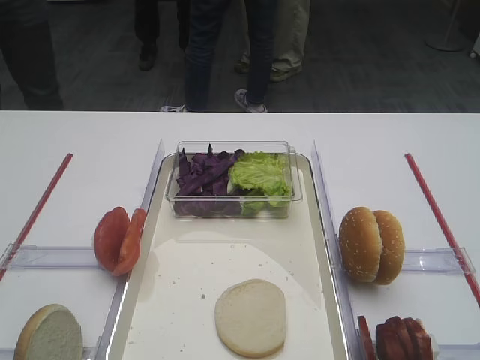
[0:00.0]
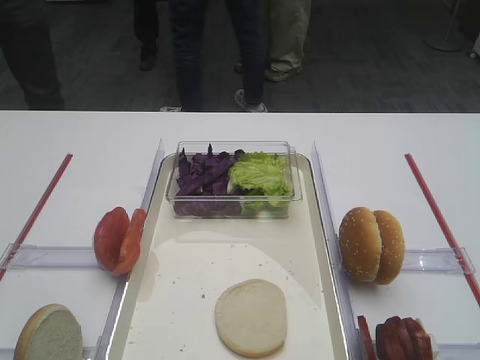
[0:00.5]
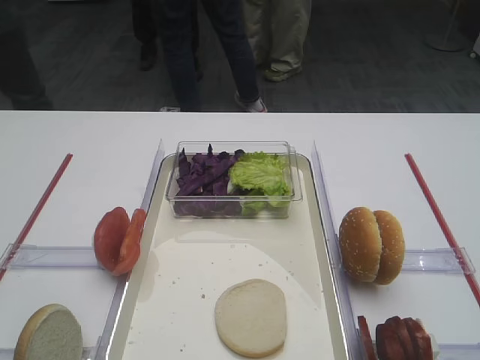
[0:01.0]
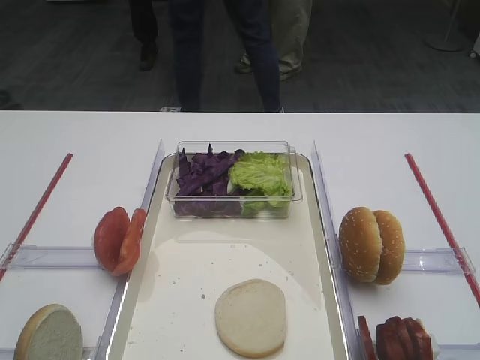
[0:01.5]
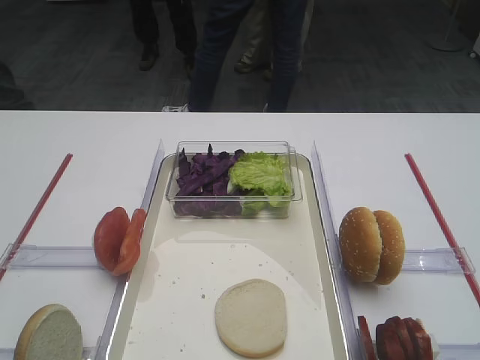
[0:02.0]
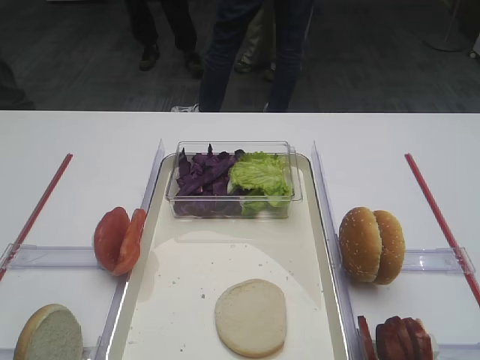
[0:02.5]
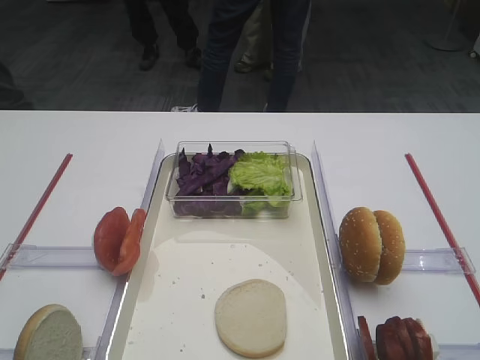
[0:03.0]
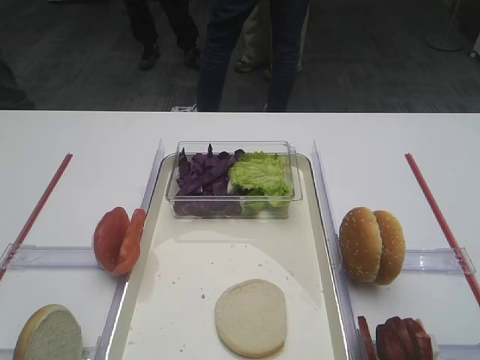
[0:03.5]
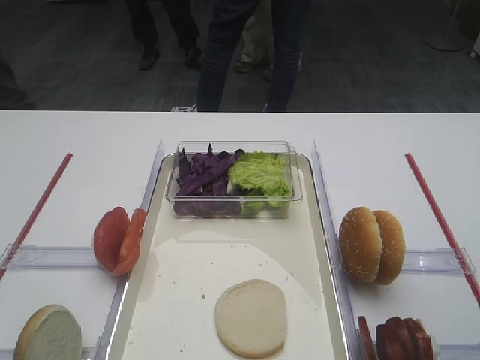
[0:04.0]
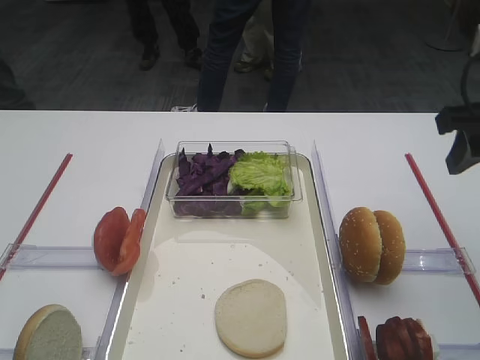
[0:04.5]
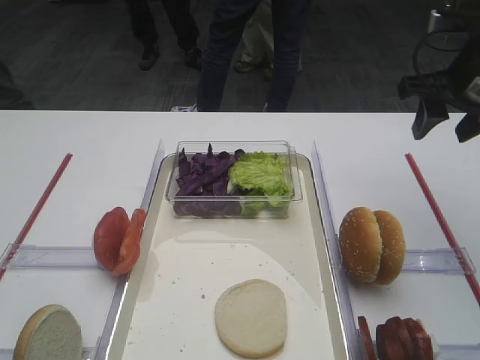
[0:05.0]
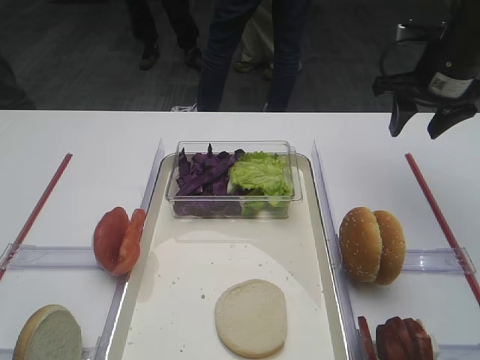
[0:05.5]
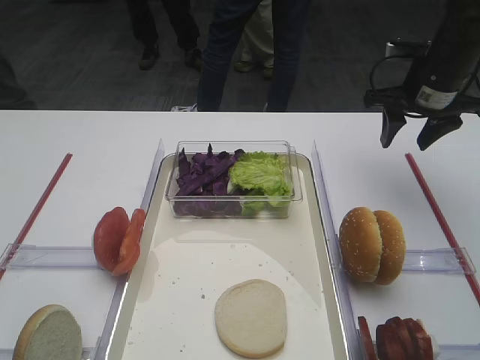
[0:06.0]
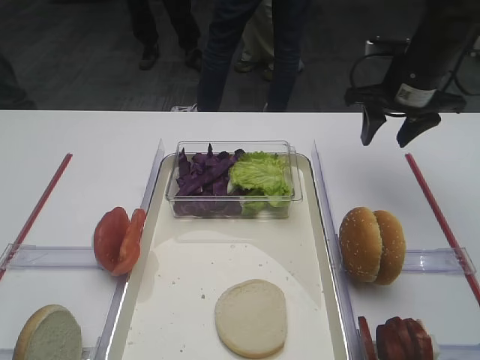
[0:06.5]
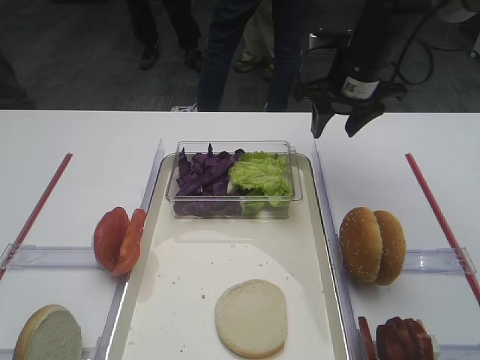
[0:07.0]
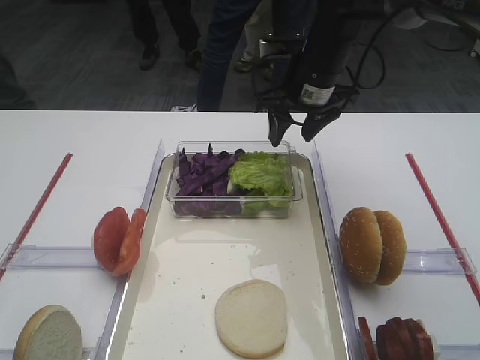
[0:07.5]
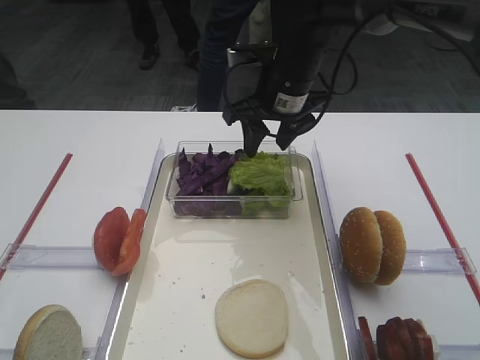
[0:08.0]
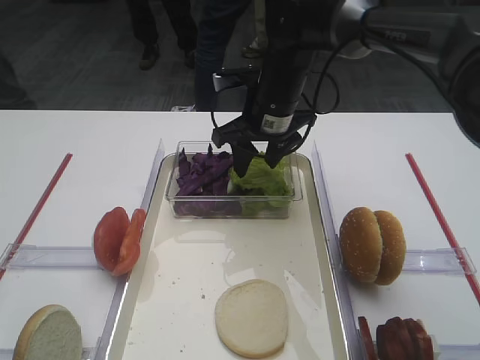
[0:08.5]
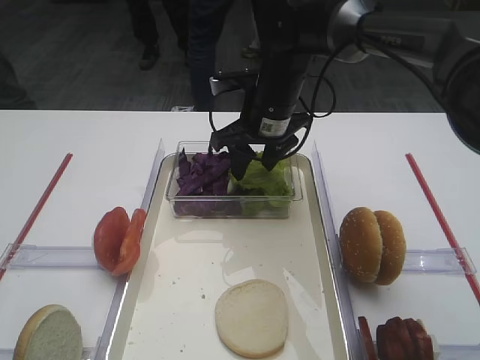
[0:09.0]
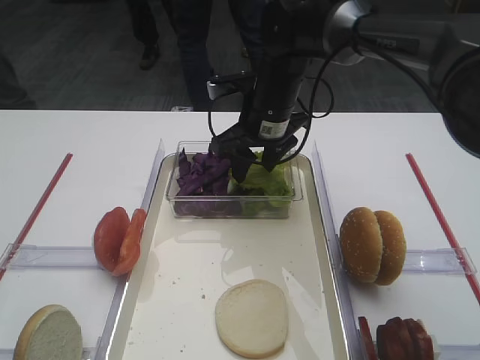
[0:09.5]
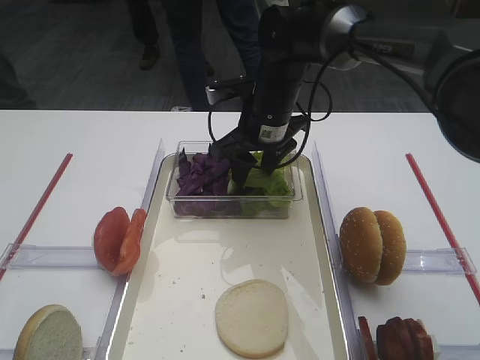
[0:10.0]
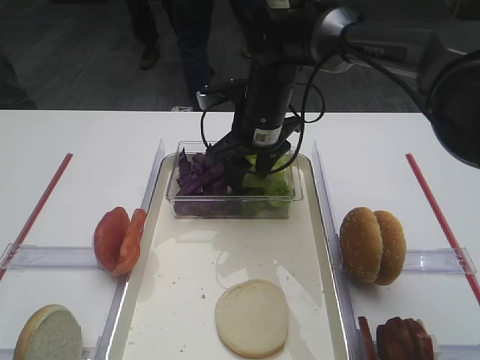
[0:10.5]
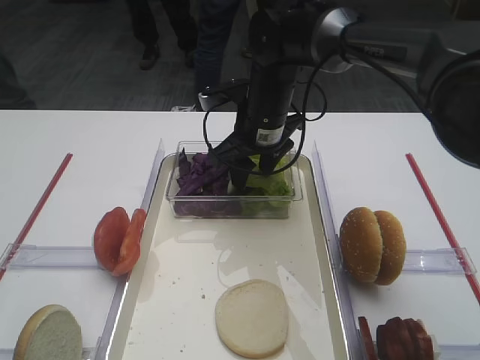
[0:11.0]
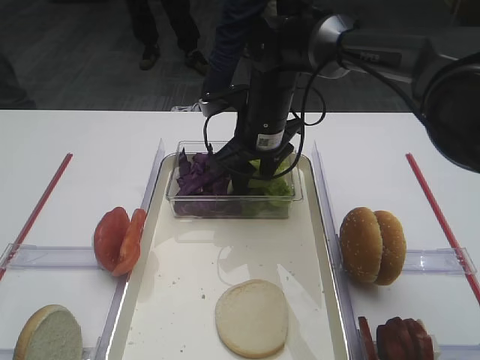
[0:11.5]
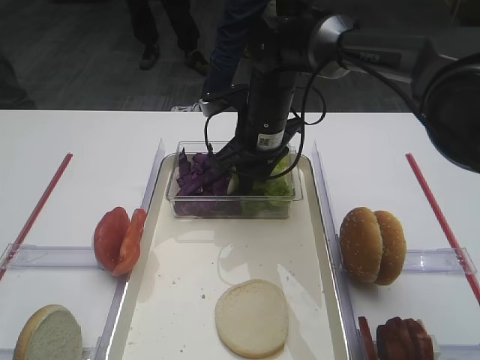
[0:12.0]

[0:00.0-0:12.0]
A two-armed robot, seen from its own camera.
0:04.0 to 0:06.0: The right gripper goes about 30 cm forward.
0:06.0 to 0:08.0: The right gripper shifts approximately 20 cm to the left.
0:08.0 to 0:10.0: There are only small adjustments of the grippers.
0:10.0 to 0:12.0: The right gripper closes.

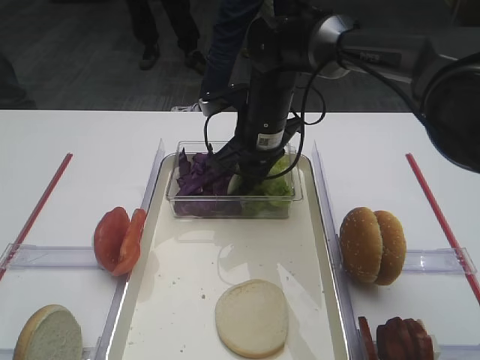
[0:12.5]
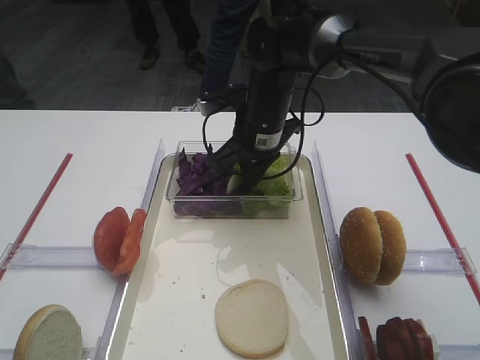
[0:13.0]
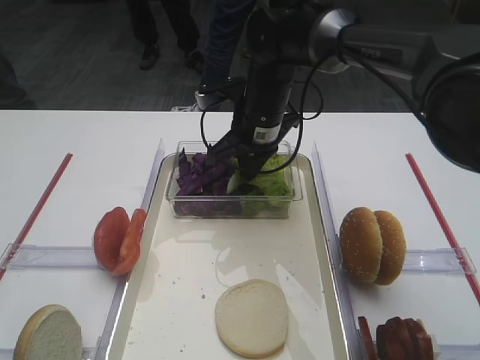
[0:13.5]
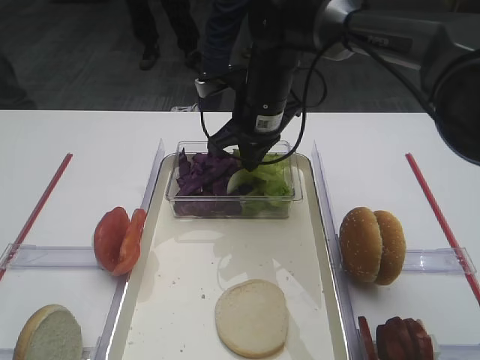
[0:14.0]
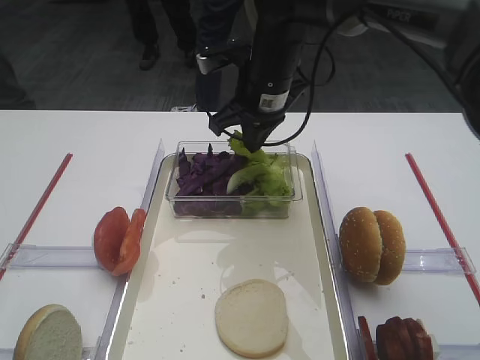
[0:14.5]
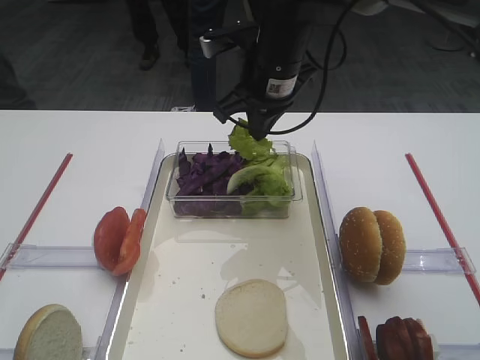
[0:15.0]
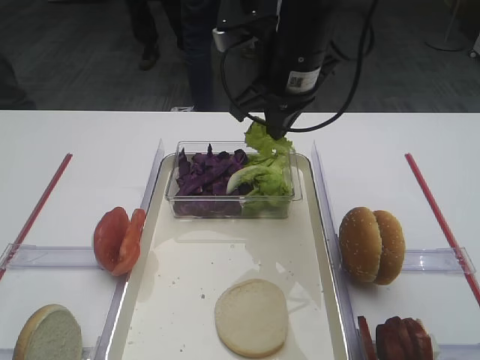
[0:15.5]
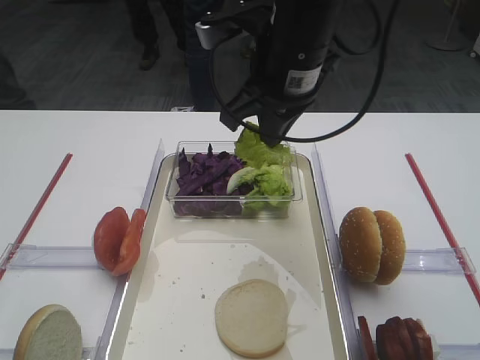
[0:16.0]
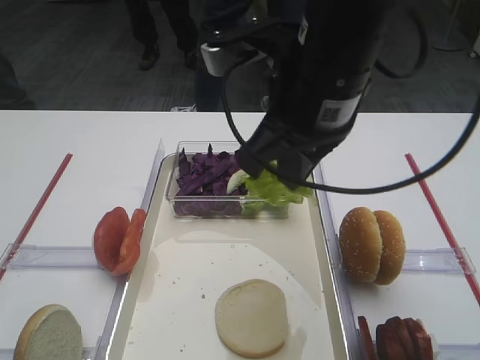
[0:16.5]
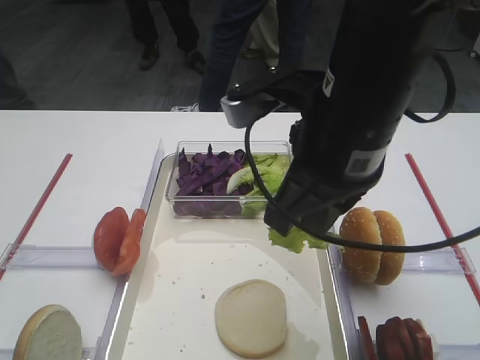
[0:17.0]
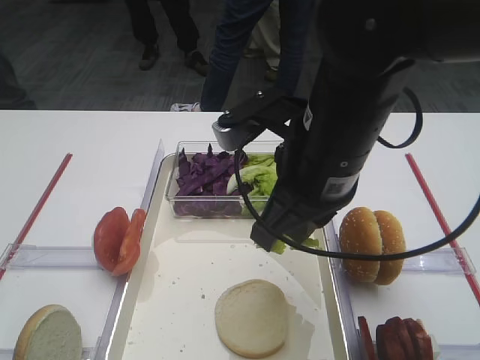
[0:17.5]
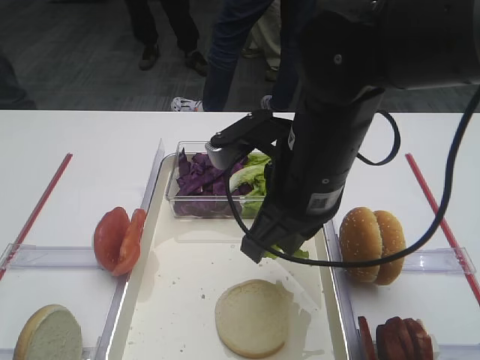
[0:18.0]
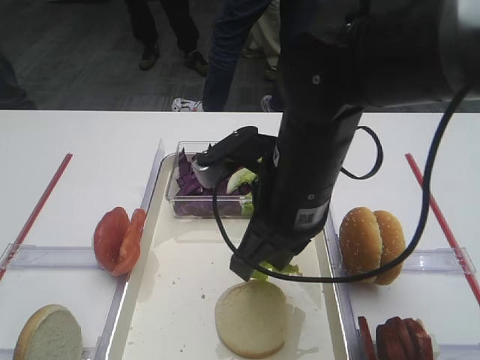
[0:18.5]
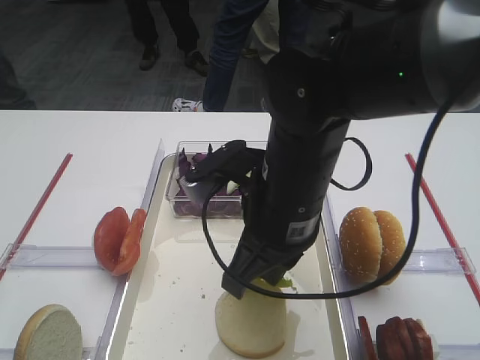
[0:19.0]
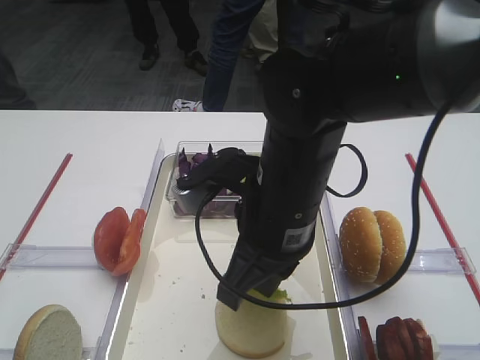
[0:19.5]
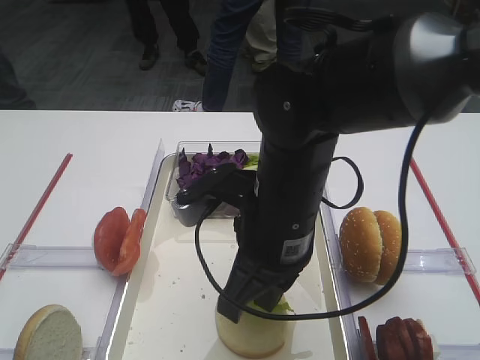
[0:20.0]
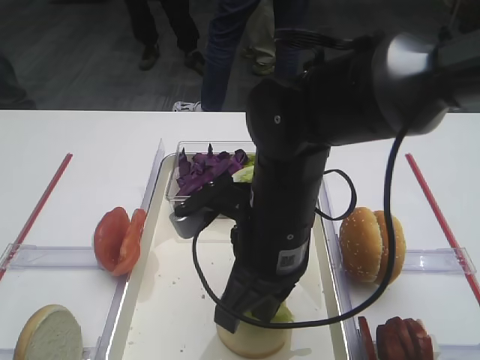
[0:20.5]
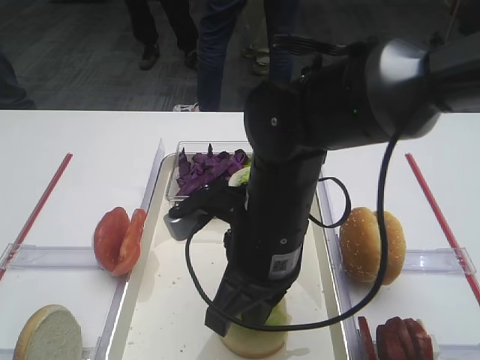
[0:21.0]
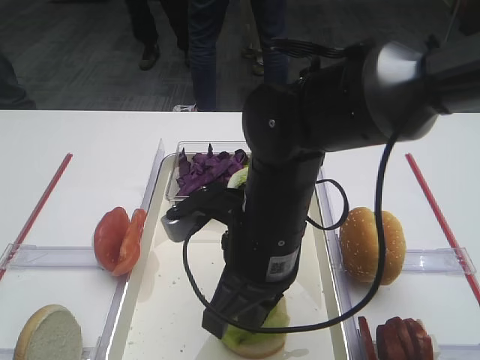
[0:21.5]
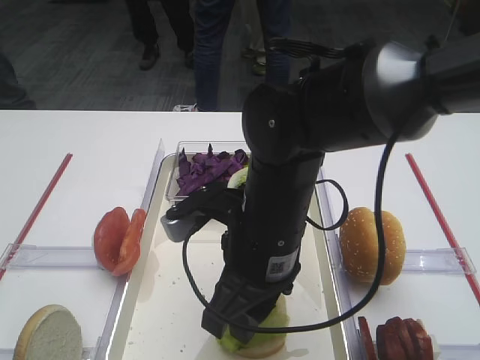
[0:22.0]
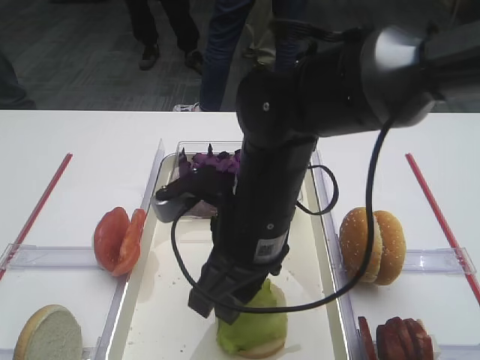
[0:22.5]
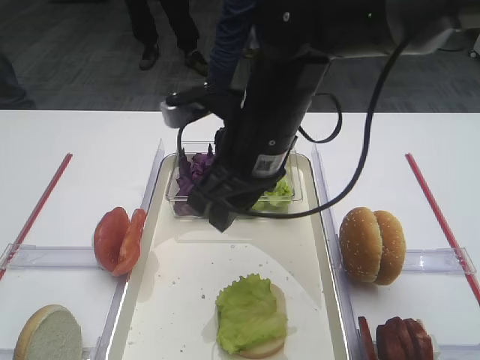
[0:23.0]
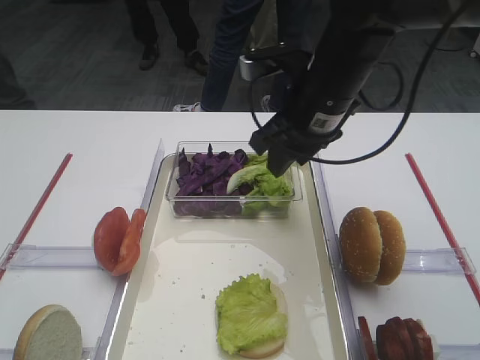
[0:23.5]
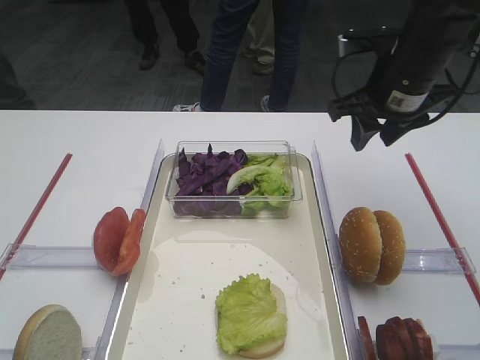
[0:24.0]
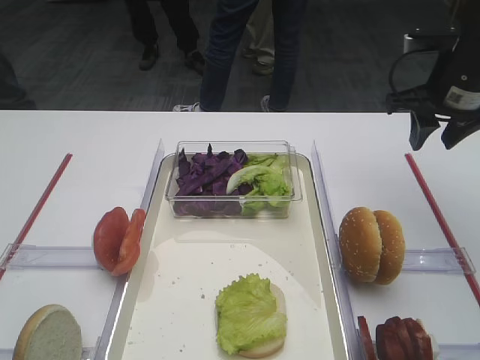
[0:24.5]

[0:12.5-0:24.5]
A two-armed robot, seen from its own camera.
Step, 0:12.5 to 0:14.5: Pick up the lettuce leaf with the right gripper.
Step, 0:15.0 to 0:22.5: Place the lettuce leaf on the bread slice with the right gripper.
0:12.5 to 0:14.5: The right gripper goes roughly 5 cm upward.
0:14.5 to 0:16.5: The right gripper moves backward and upward, some 20 cm.
0:16.5 to 0:18.5: The right gripper moves downward, some 10 cm.
0:18.5 to 0:20.5: There are only small adjustments of the grippers.
0:20.5 to 0:22.5: The right gripper opens its fingers.
0:22.5 to 0:24.5: The right gripper shifts some 30 cm to the right and forward.

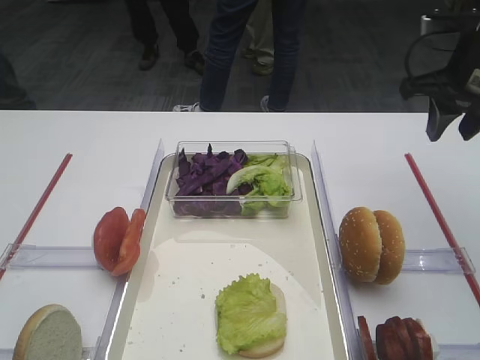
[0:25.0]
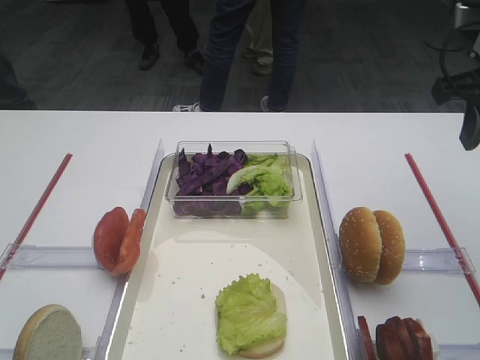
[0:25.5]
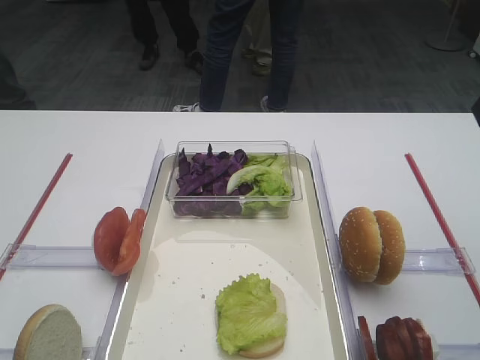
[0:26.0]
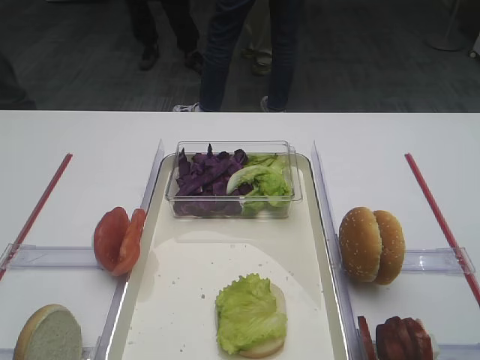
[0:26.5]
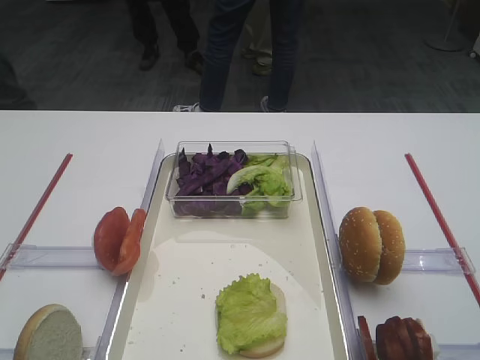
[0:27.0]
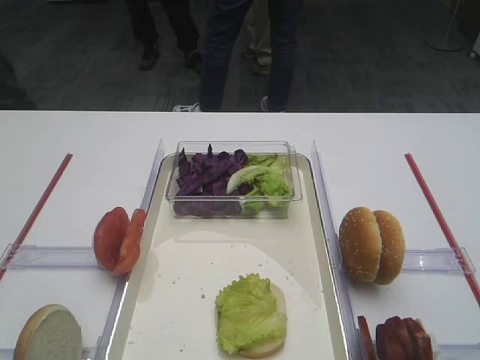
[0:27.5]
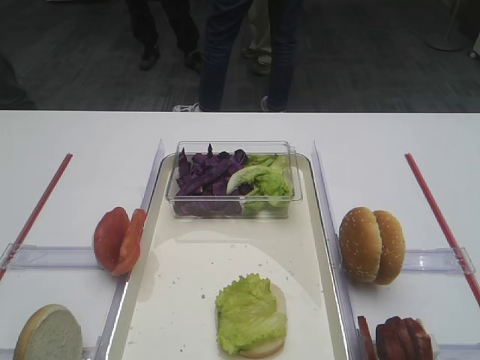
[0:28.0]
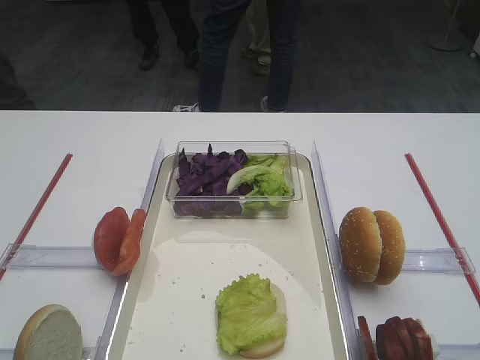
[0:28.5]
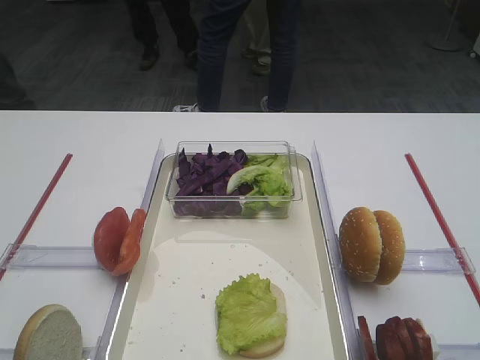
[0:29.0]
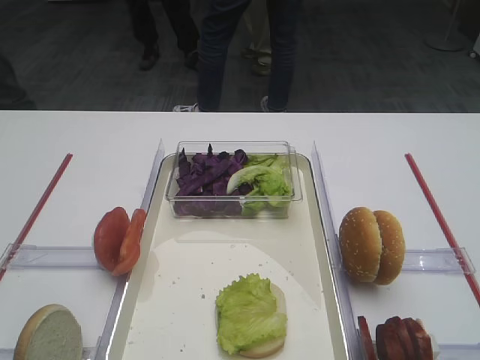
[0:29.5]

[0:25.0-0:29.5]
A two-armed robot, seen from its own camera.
0:25.0 to 0:27.0: The right gripper goes about 25 cm backward.
